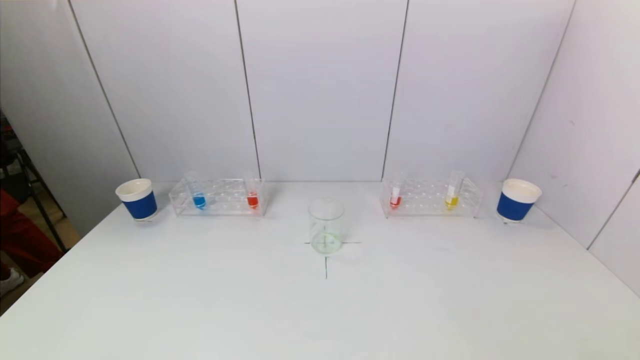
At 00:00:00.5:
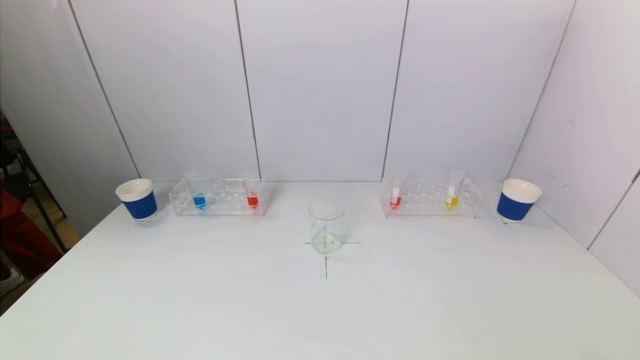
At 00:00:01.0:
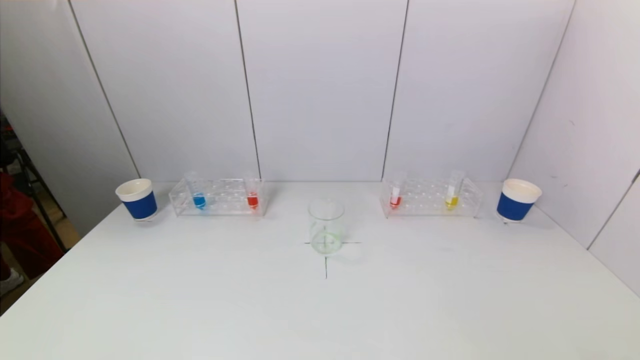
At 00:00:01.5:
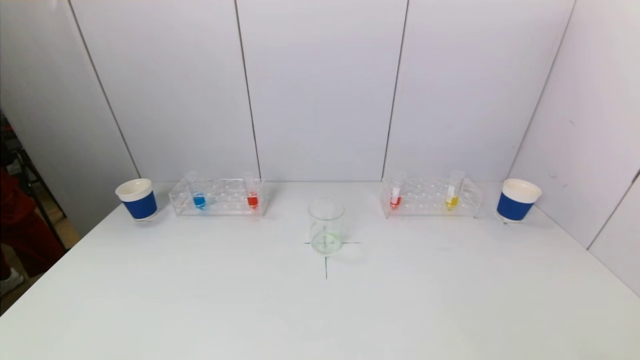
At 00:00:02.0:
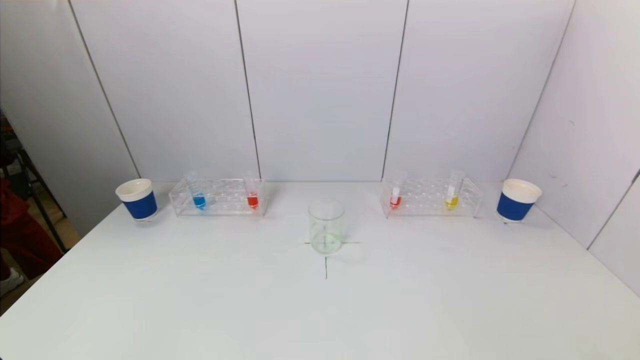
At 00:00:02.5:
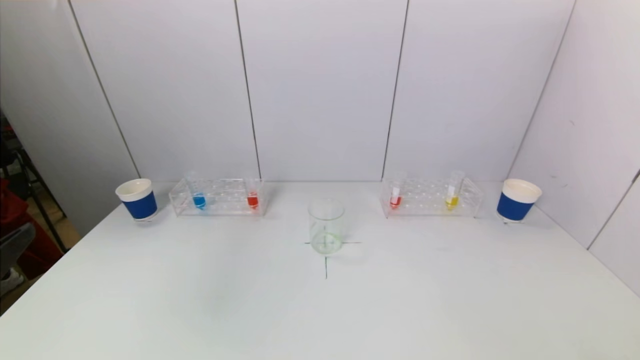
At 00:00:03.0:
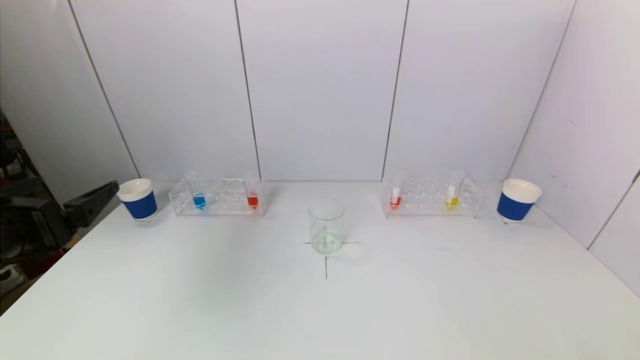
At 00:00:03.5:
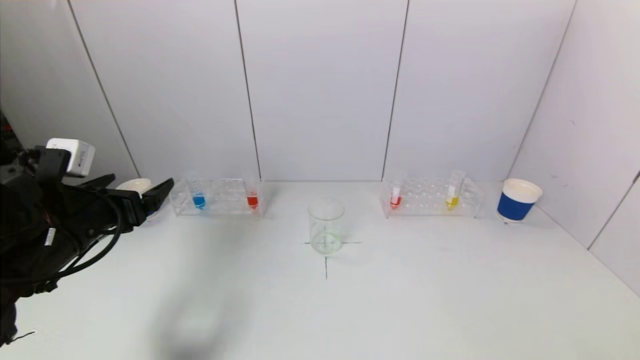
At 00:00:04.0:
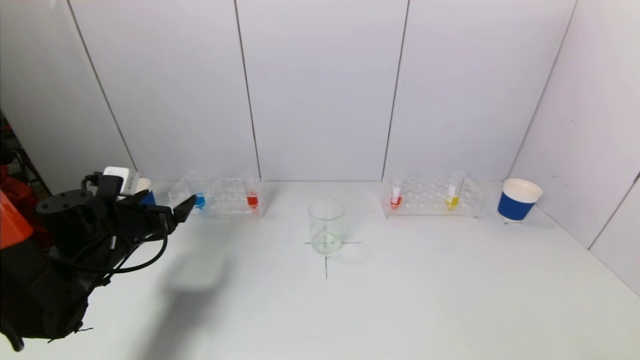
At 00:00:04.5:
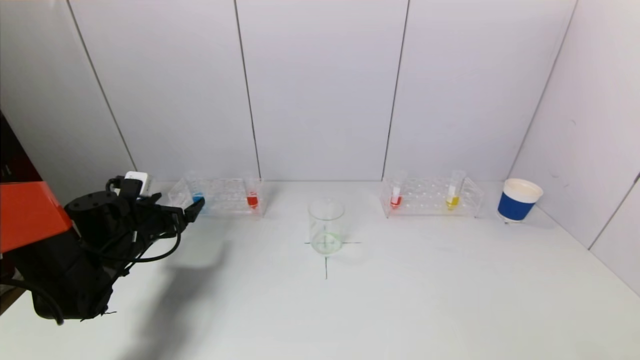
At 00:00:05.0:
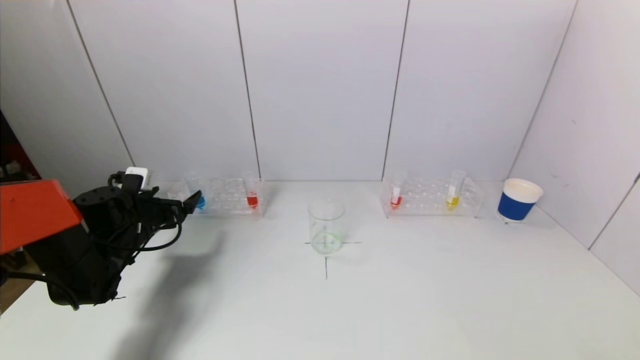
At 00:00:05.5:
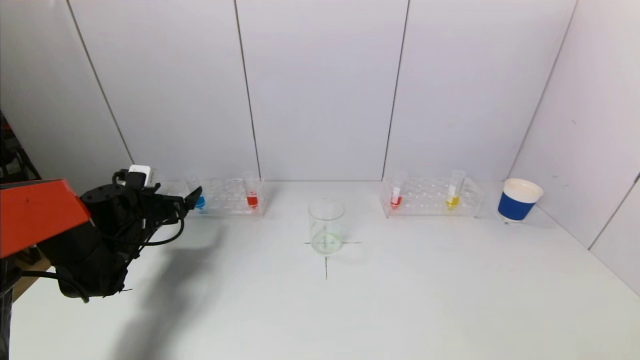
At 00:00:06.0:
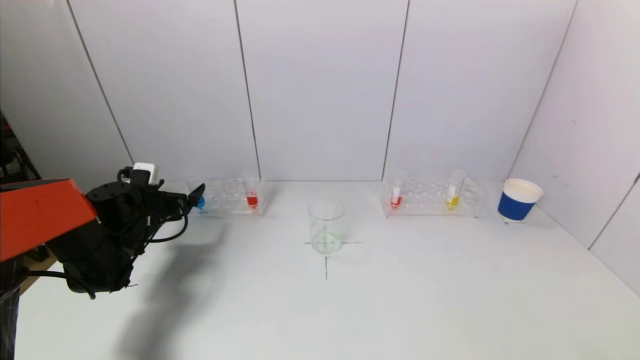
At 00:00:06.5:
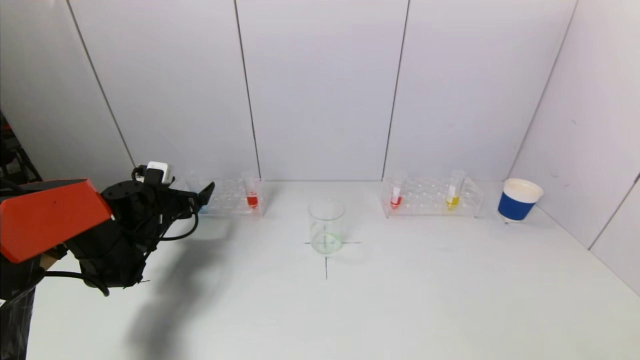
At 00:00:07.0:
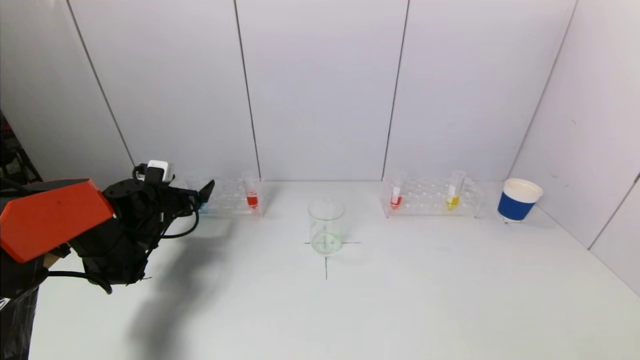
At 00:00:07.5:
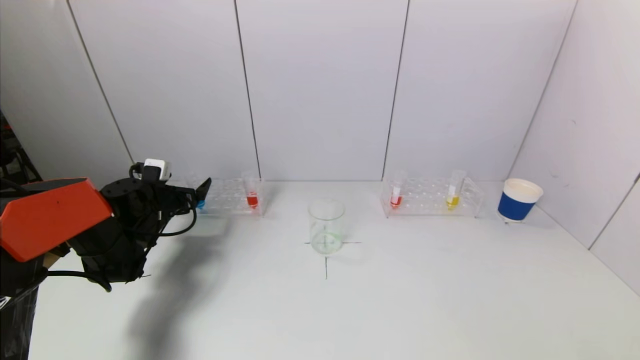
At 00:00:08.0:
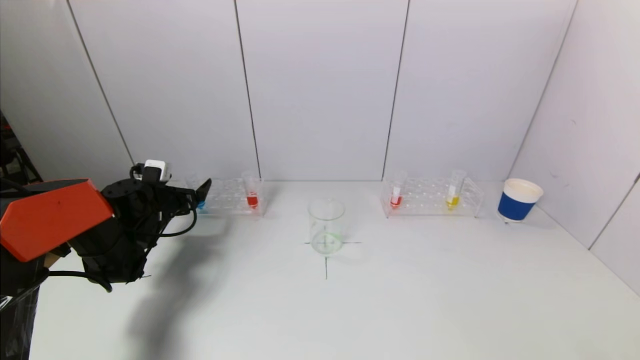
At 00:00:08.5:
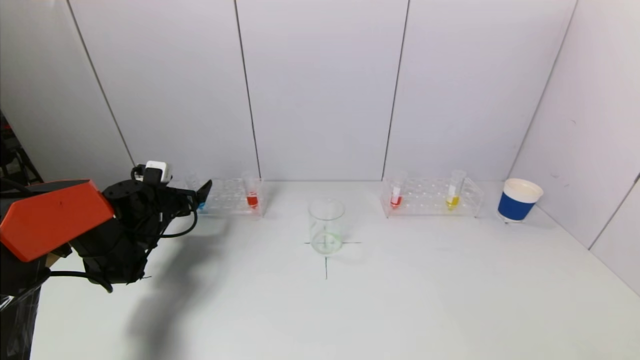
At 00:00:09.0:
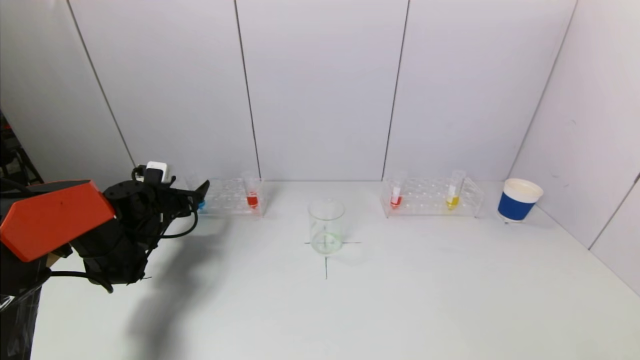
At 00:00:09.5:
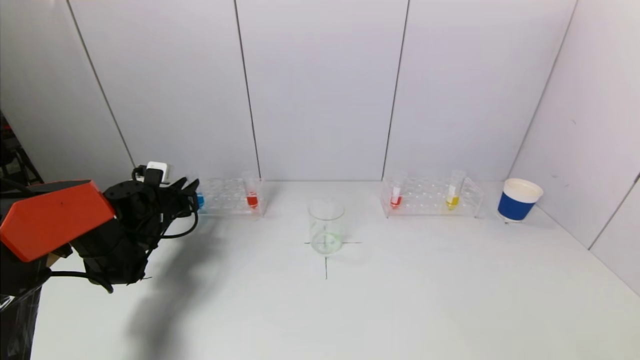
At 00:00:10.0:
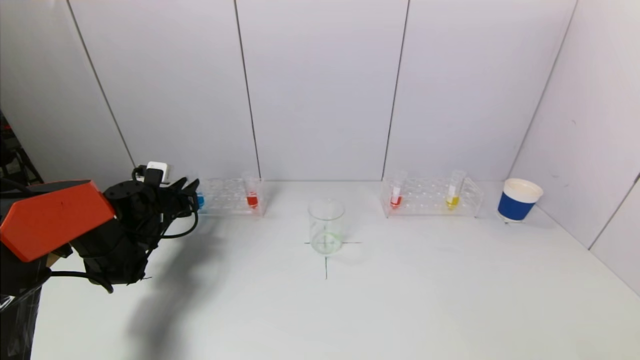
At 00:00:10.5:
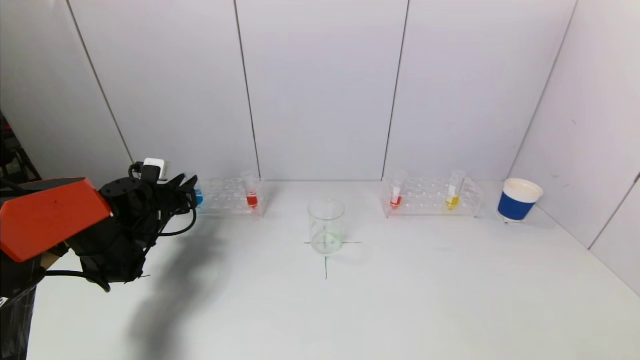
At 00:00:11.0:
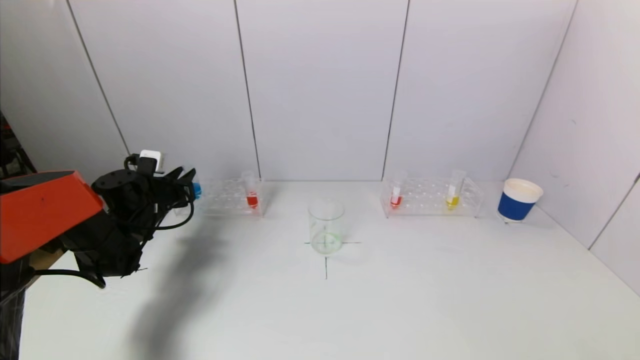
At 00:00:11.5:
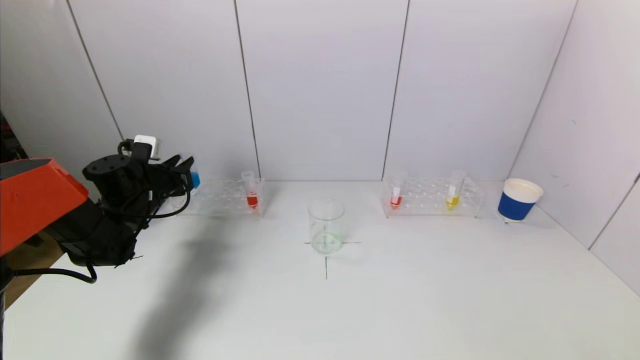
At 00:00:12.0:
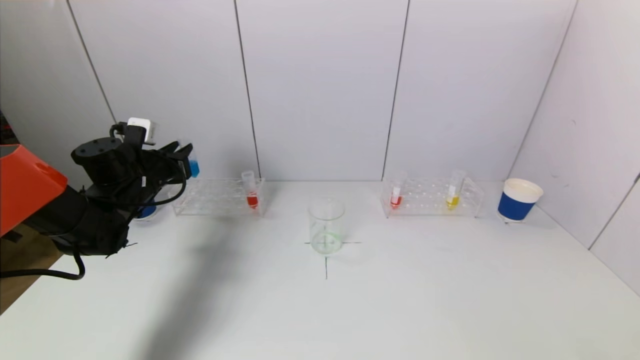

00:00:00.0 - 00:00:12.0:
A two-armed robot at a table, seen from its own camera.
Task of the whole recording: pick up a test tube with pigment on left test tube rack and a test tube with pigment on right test tube rack by grippers and pour them into the beaker.
Step, 00:00:00.0 - 00:00:09.5: Grasp the blue reagent with the left gripper.
00:00:02.0 - 00:00:04.0: The left gripper travels forward by roughly 35 cm.
00:00:04.0 - 00:00:06.0: The left gripper goes some 10 cm forward.
00:00:06.0 - 00:00:08.0: The grippers move only a little.
00:00:08.0 - 00:00:10.0: The left gripper closes.
00:00:10.0 - 00:00:12.0: The left gripper travels upward by about 10 cm.

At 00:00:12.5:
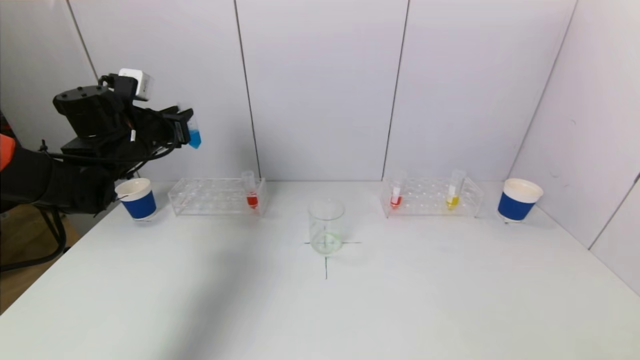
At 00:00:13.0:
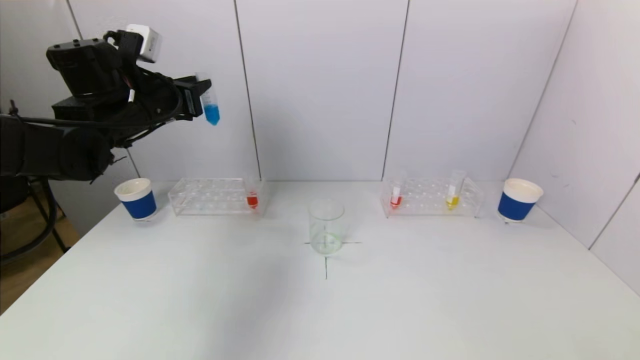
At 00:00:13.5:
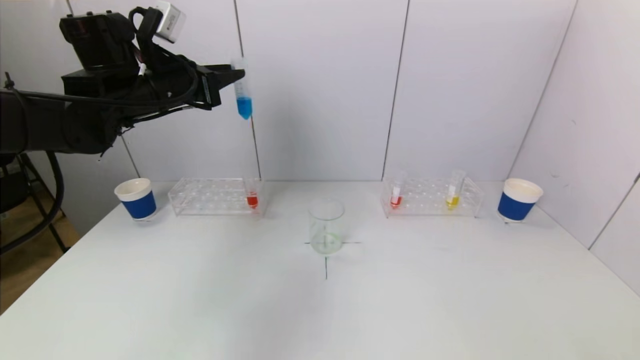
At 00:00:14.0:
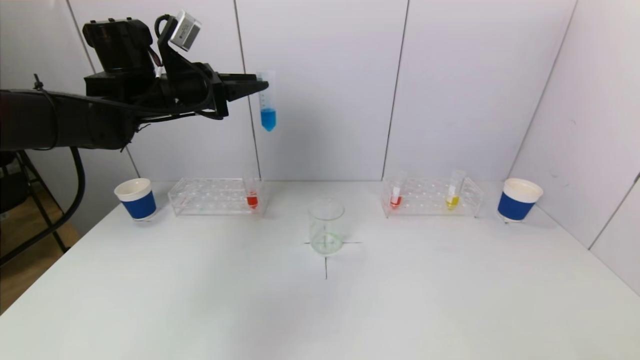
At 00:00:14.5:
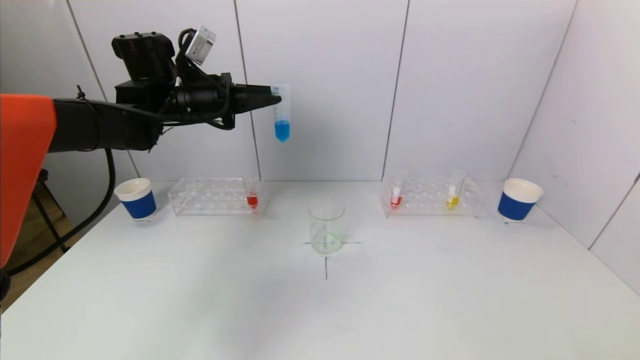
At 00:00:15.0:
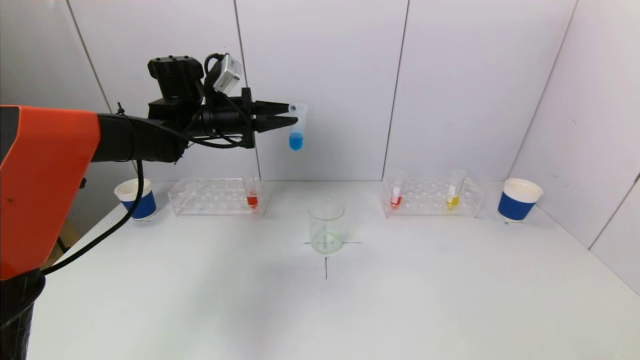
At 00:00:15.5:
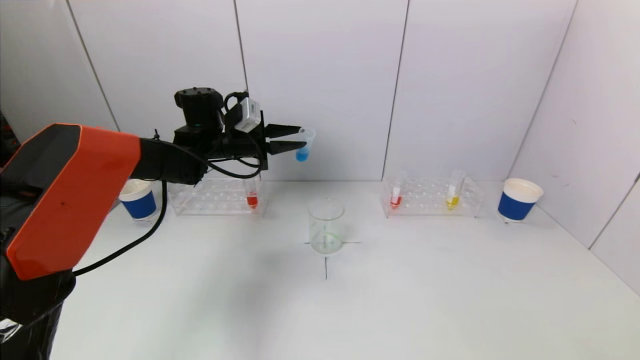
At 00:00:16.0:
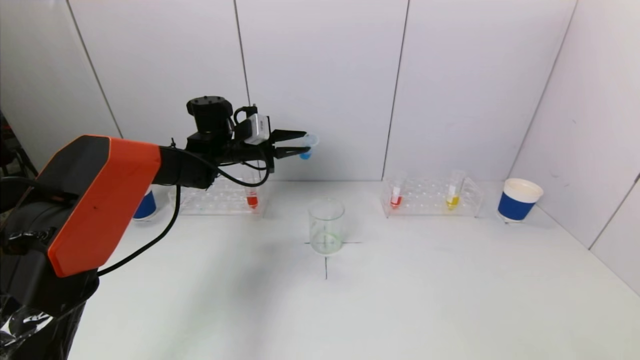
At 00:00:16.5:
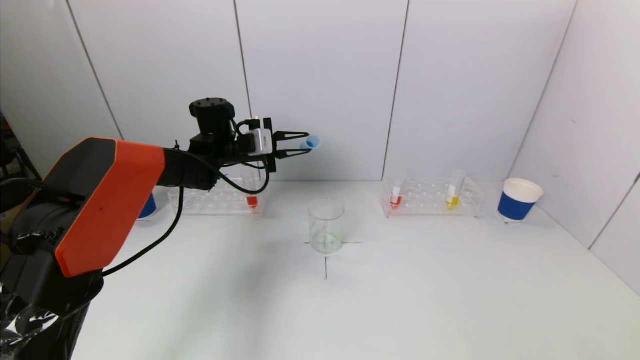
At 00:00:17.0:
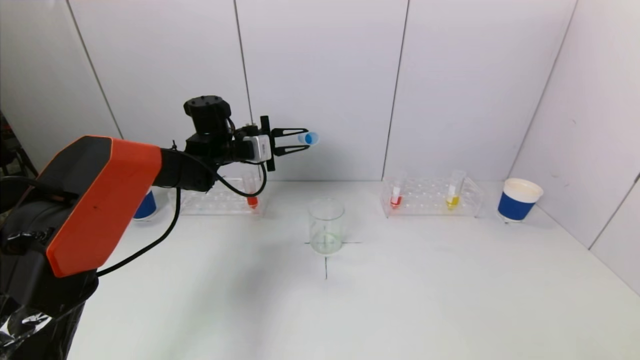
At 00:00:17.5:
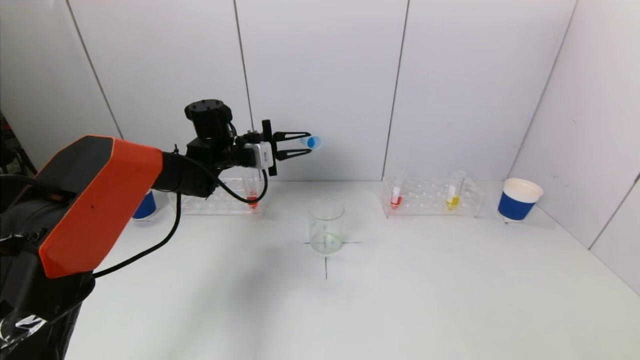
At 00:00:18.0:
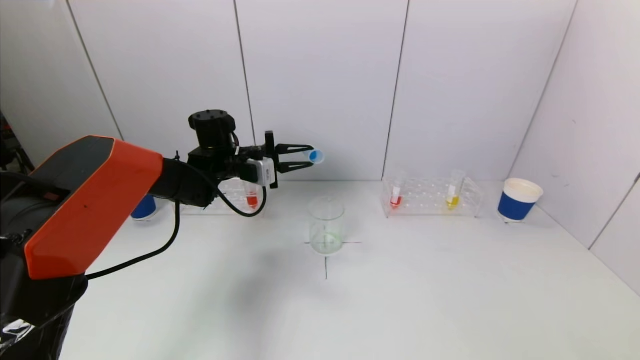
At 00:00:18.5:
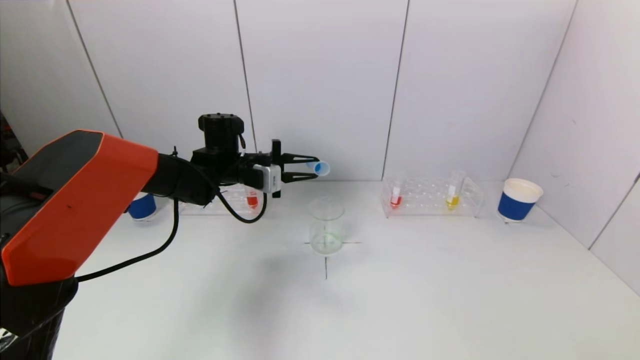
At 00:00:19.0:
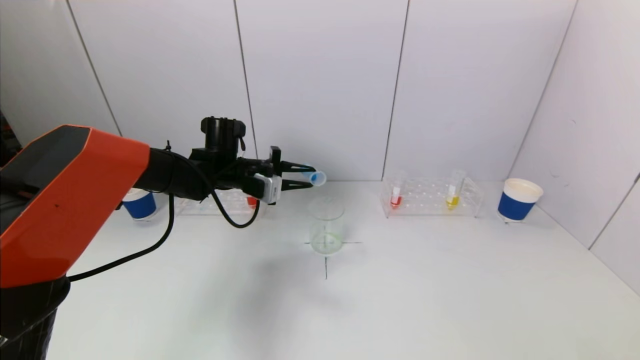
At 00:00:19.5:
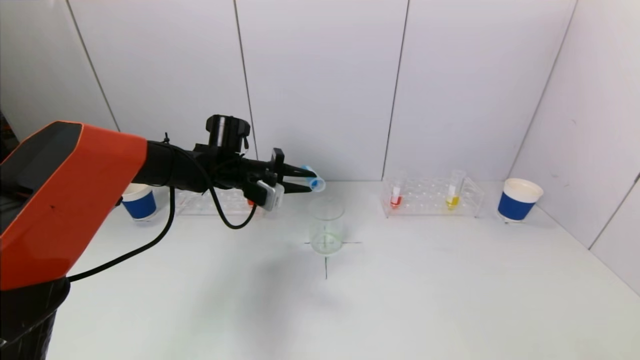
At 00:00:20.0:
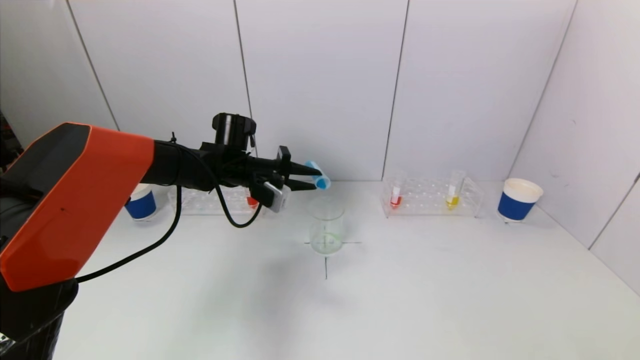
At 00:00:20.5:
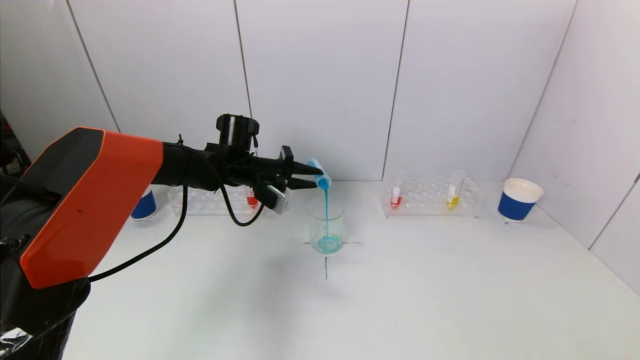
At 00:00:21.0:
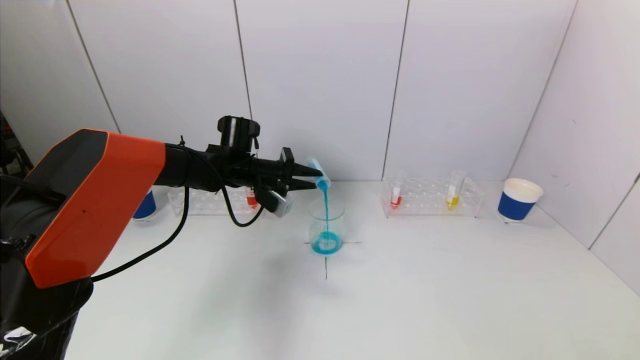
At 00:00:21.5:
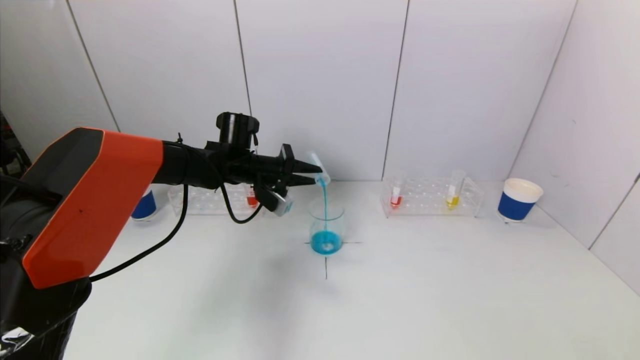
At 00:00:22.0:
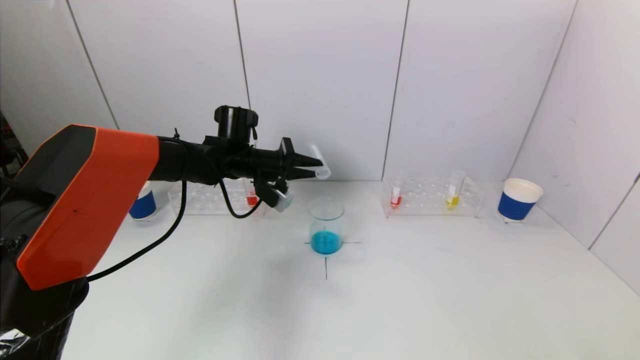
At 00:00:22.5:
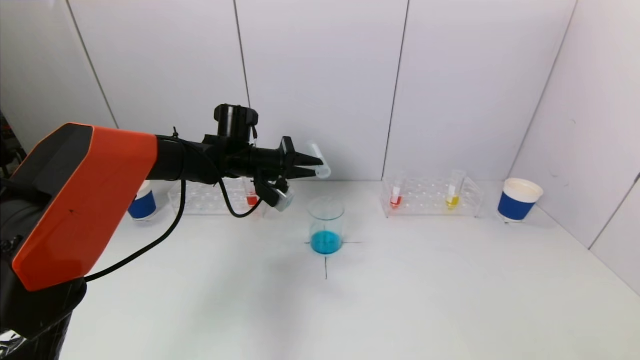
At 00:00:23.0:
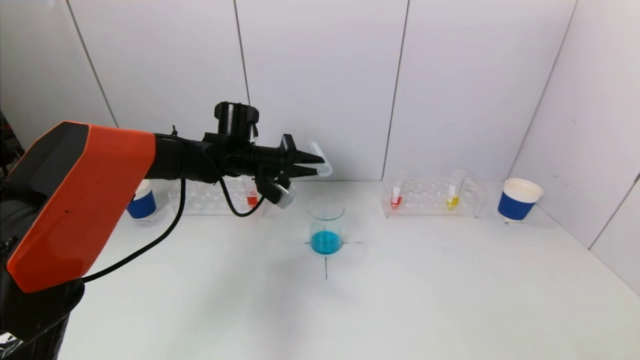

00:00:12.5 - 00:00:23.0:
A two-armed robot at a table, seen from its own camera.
Task of the whole recording: pick up a test tube with pigment on left test tube rack and a test tube with pigment on right test tube rack by grippers and pour them into the beaker.
Step, 00:00:12.5 - 00:00:21.5: Pour the blue reagent into the graduated cylinder with the left gripper.
00:00:12.5 - 00:00:14.5: The left gripper is displaced to the right and upward by approximately 10 cm.
00:00:14.5 - 00:00:16.5: The left gripper travels downward and forward by roughly 10 cm.
00:00:16.5 - 00:00:19.0: The left gripper ends up roughly 5 cm from where it was.
00:00:21.0 - 00:00:23.0: The grippers make only small movements.
